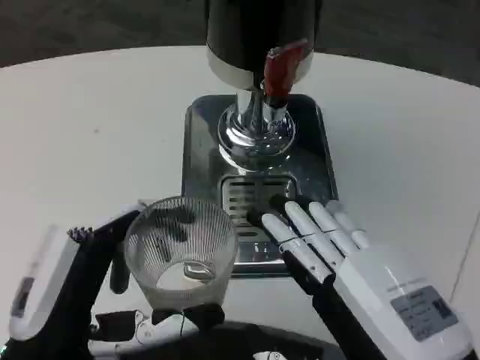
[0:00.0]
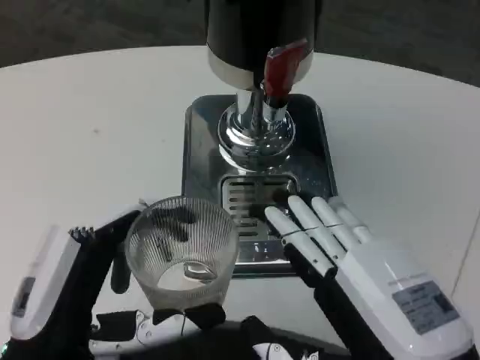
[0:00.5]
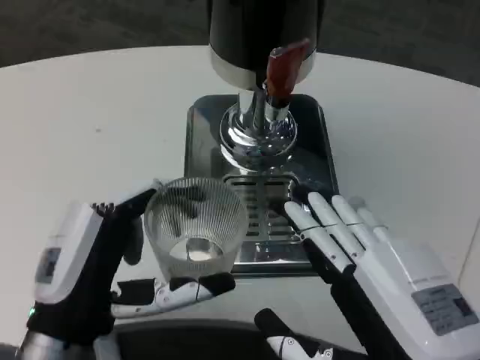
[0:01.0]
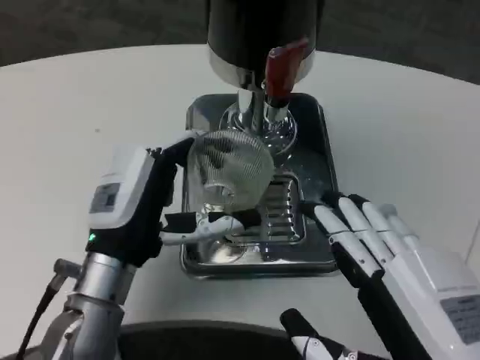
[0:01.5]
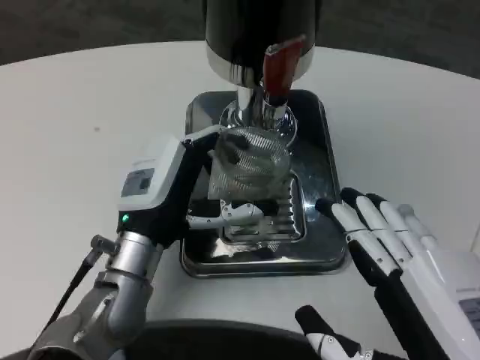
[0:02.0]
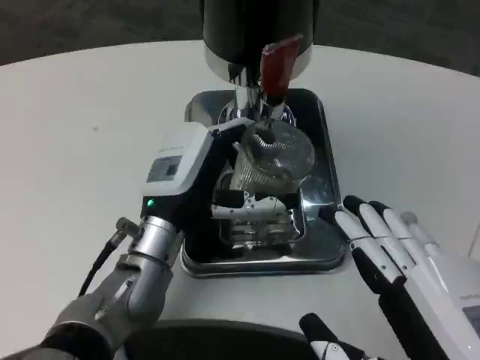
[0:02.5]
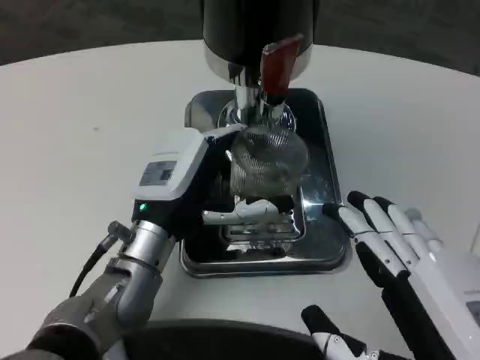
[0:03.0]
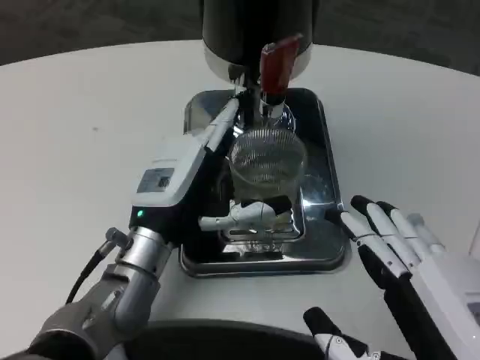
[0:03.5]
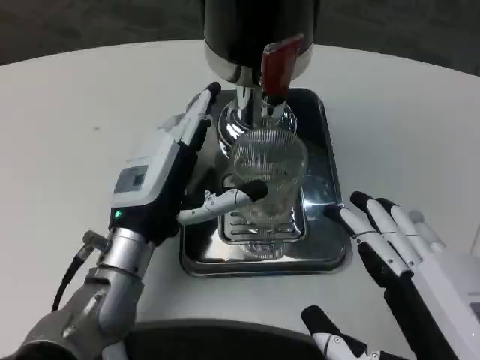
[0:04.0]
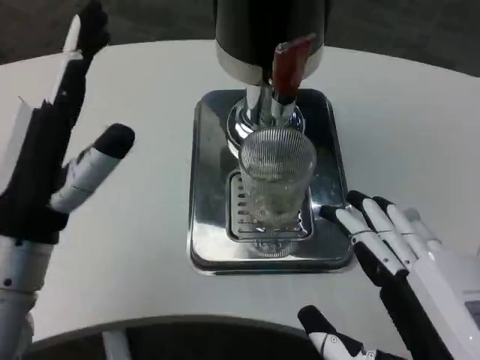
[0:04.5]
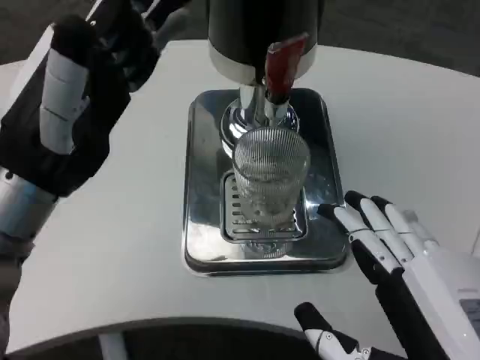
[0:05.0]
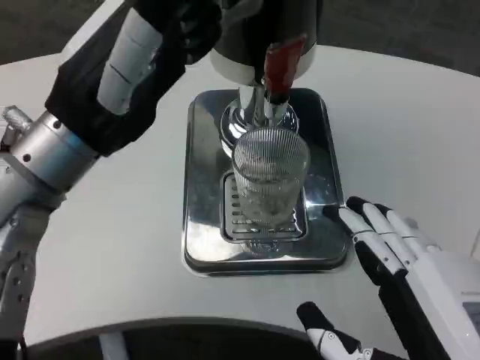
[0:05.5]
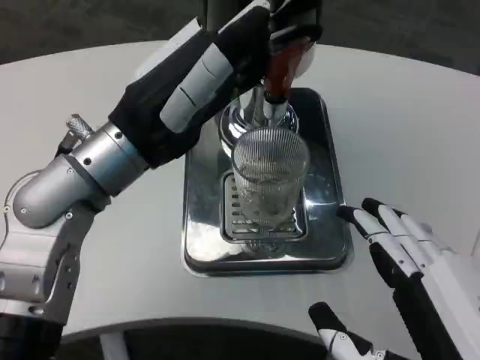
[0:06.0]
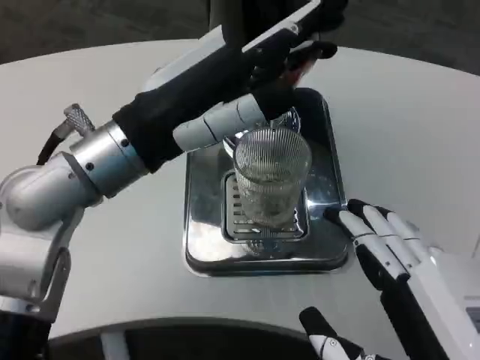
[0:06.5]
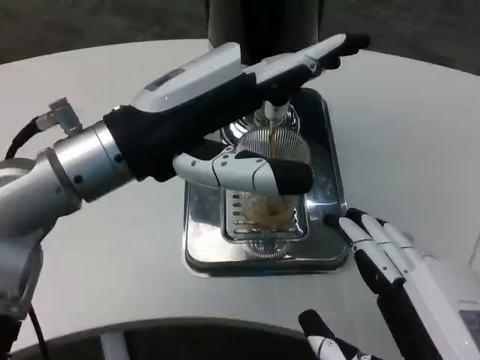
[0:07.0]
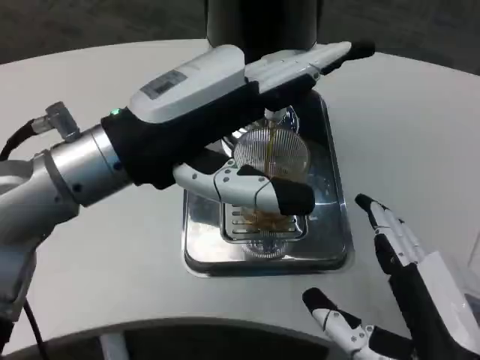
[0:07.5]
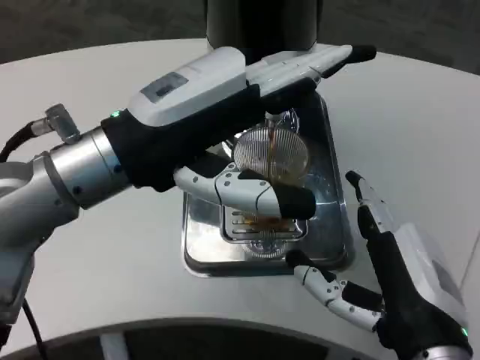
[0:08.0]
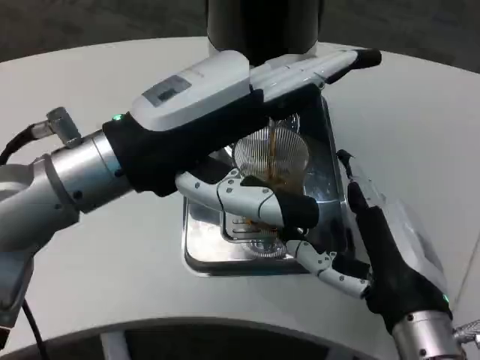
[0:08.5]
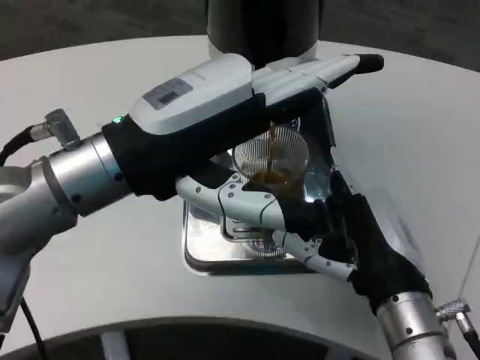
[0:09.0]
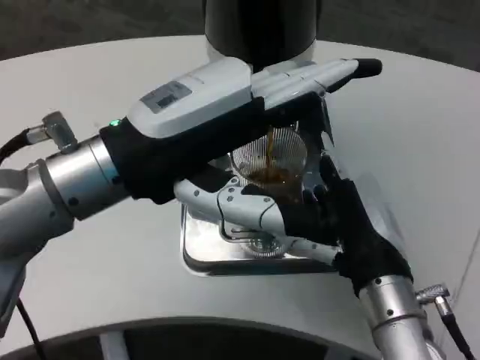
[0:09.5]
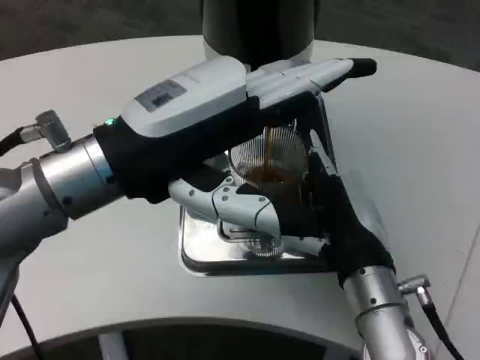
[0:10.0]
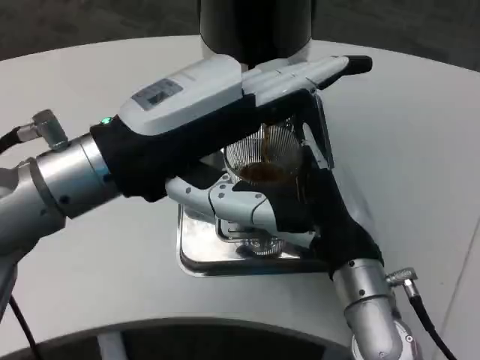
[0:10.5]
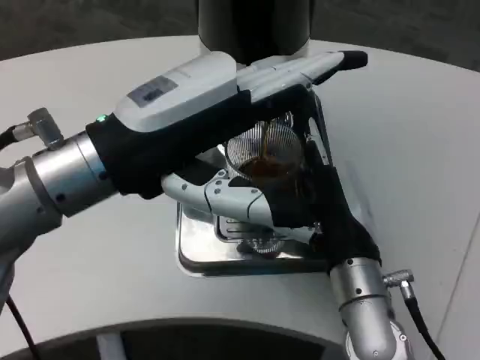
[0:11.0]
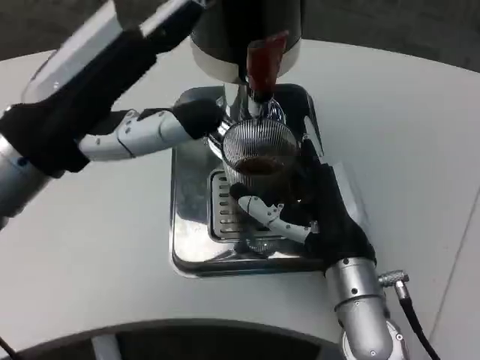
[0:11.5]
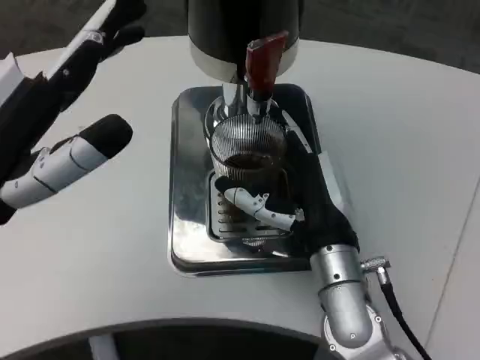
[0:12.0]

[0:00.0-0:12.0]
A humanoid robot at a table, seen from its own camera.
Task of the whole recording: Grasp the cup under the faucet to collect the drink, then remove the cup.
0:00.0 to 0:02.0: The left hand goes roughly 15 cm forward.
0:02.0 to 0:04.0: The hands move only a little.
0:04.0 to 0:06.0: The left hand moves upward, roughly 15 cm.
0:06.0 to 0:08.0: The right hand shifts roughly 10 cm forward.
0:08.0 to 0:10.0: The right hand is displaced forward by some 10 cm.
0:10.0 to 0:12.0: The left hand travels to the left by approximately 10 cm.

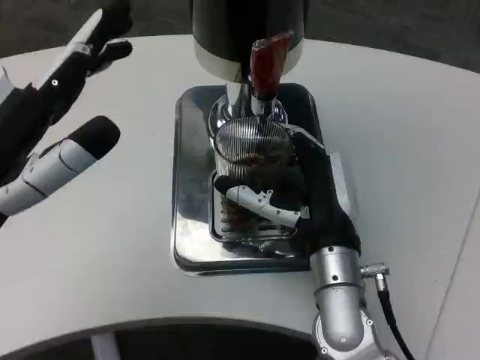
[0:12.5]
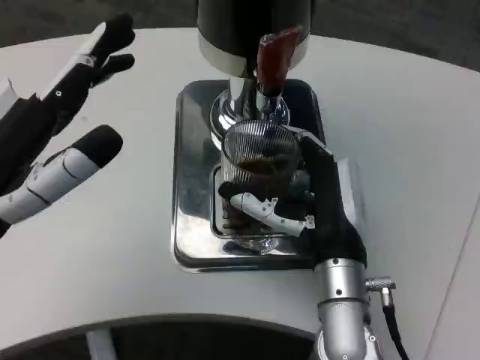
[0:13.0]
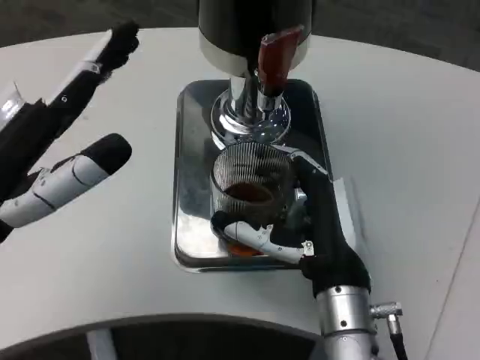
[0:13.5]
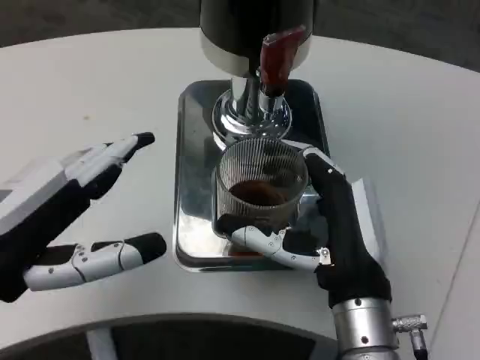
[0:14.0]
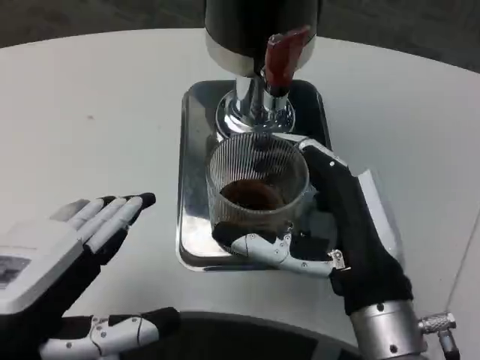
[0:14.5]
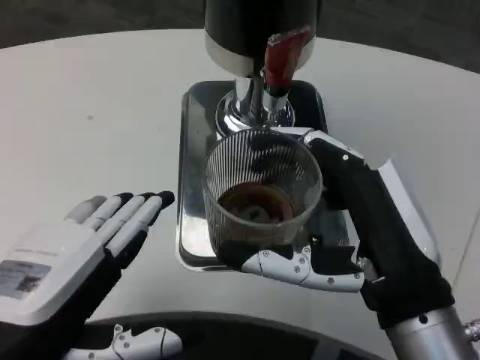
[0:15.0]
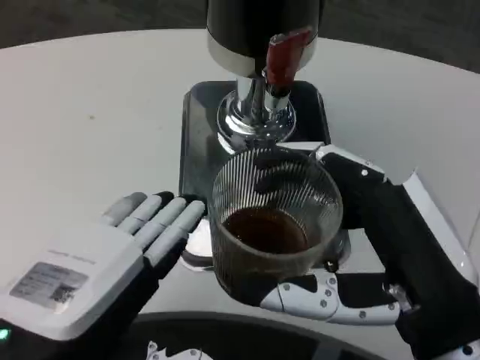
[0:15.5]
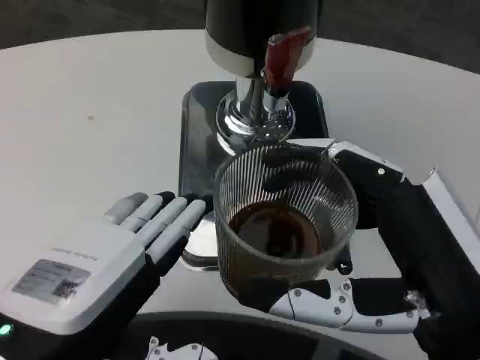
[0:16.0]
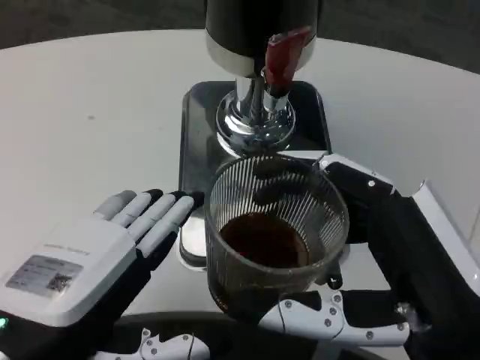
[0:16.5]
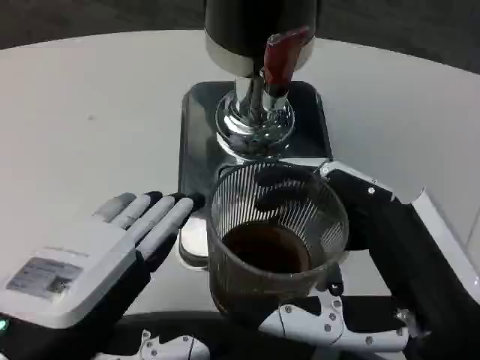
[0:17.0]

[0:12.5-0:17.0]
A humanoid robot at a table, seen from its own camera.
Task of the whole recording: Grasp the cup under the faucet to collect the drink, then remove the cup.
0:12.5 to 0:14.5: Both hands move backward, approximately 10 cm.
0:14.5 to 0:17.0: The right hand shifts approximately 10 cm backward.

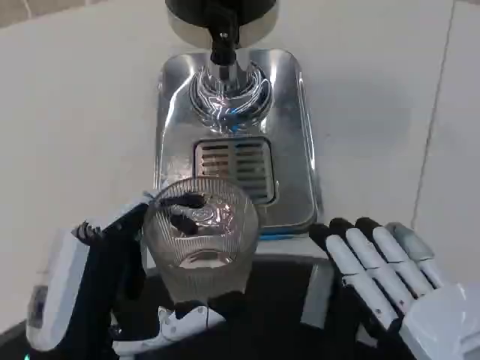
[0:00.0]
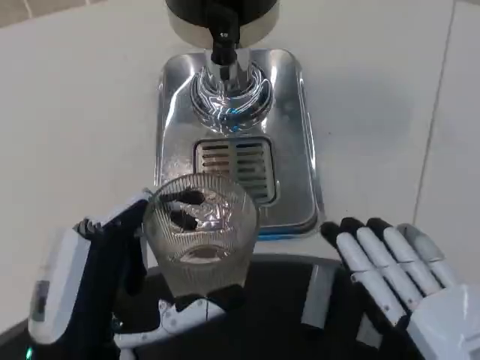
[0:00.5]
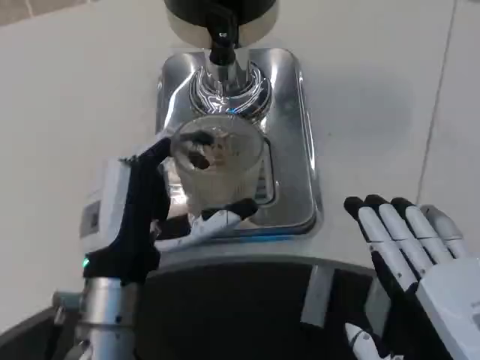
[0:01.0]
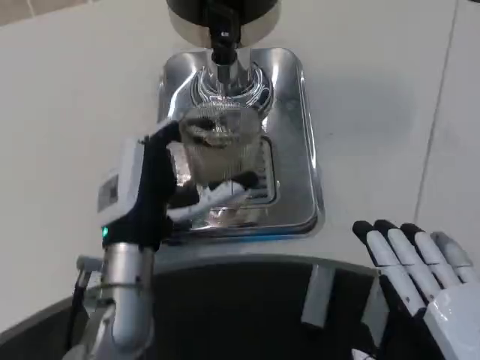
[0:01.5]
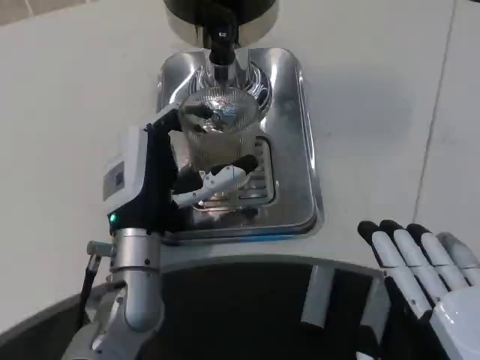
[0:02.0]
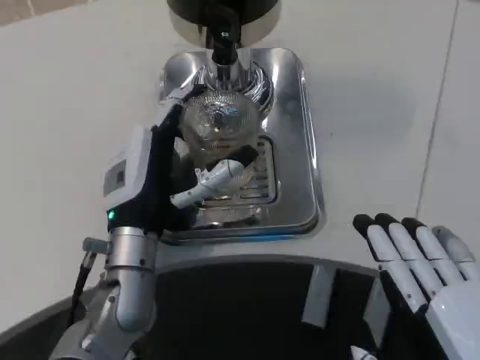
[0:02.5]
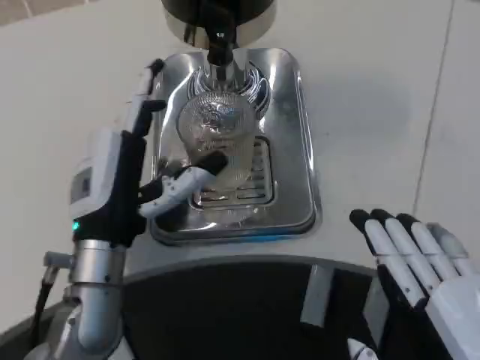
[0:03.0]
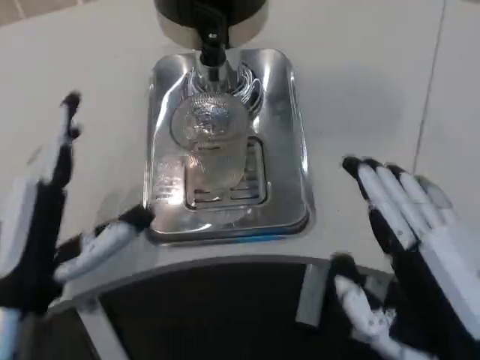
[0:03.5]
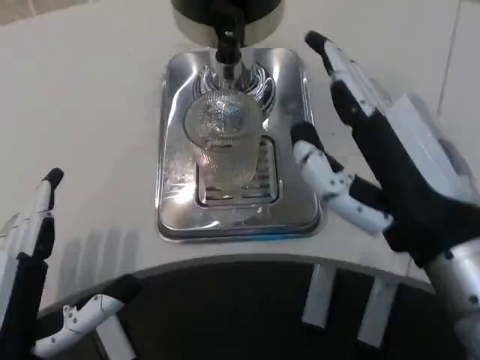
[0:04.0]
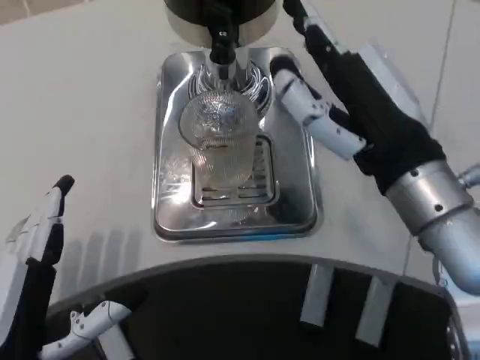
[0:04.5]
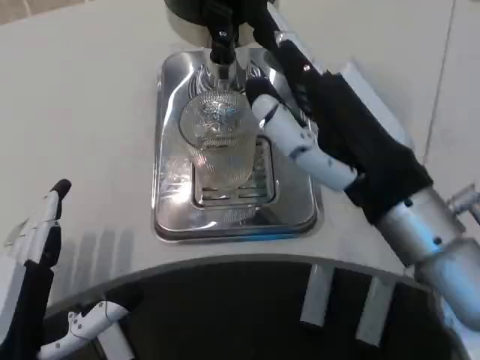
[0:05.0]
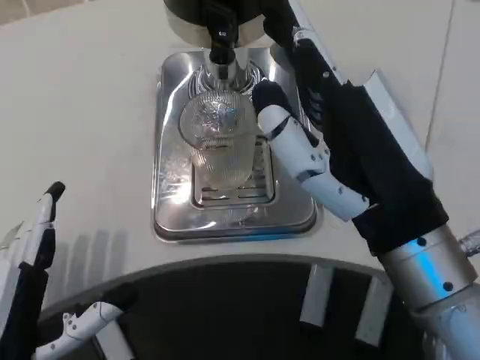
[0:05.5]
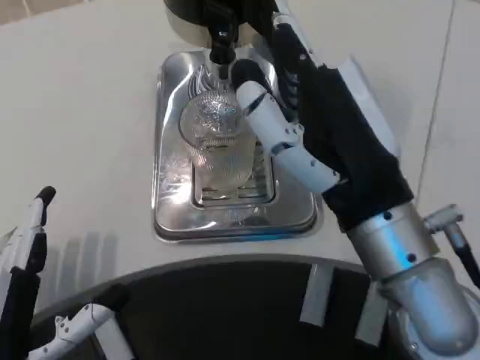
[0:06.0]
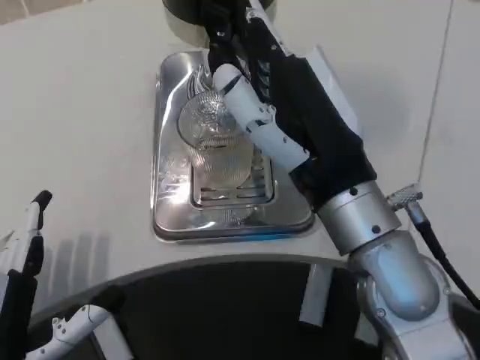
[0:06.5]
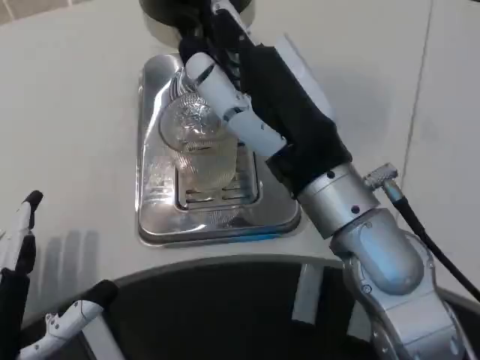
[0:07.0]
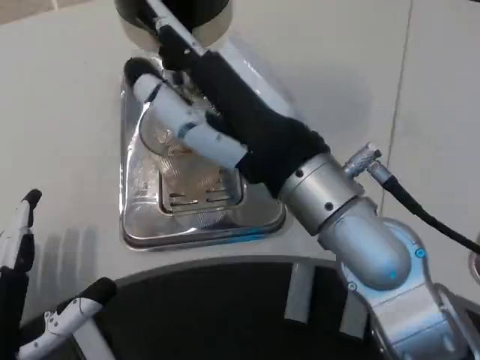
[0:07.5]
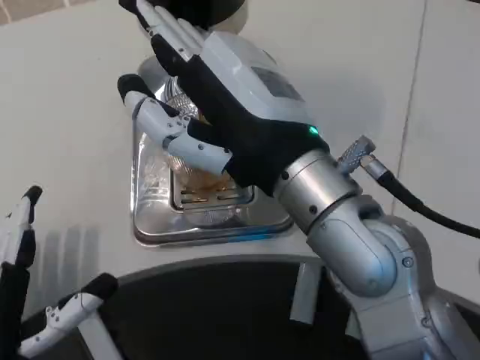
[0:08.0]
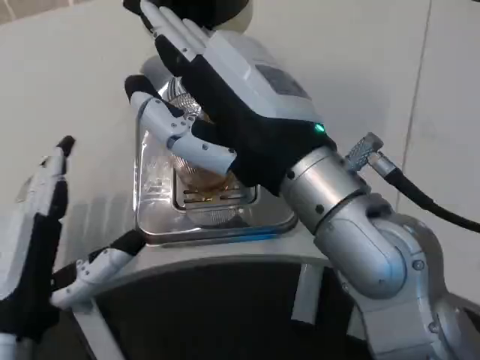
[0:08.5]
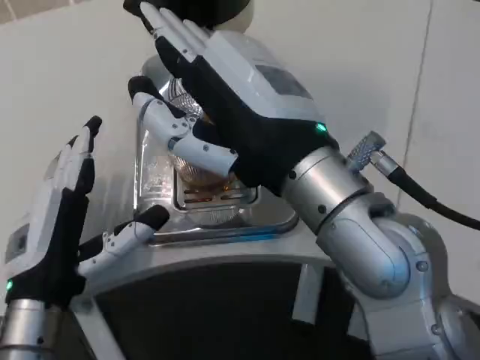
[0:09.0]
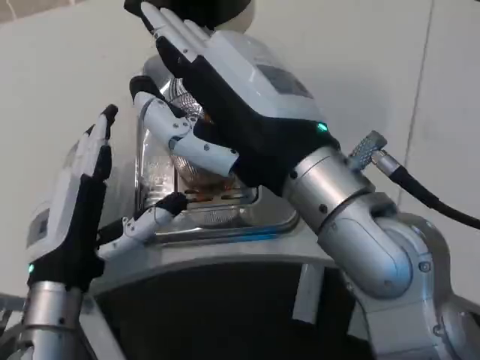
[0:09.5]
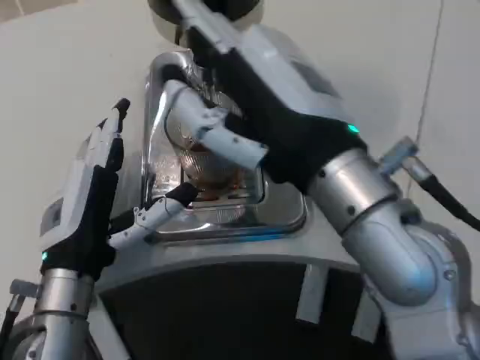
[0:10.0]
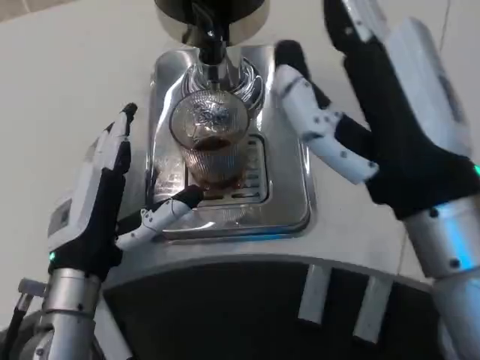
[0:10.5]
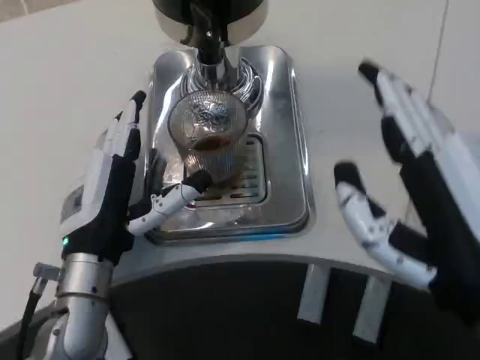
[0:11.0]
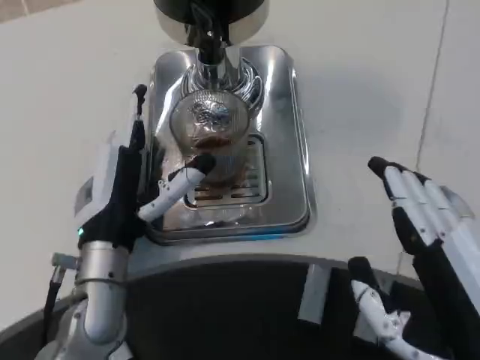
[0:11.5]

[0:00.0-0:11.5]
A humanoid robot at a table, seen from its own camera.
Task of the whole recording: Grasp the cup under the faucet to collect the drink, then remove the cup.
0:00.0 to 0:02.0: The left hand goes about 15 cm forward.
0:02.0 to 0:04.0: The left hand travels backward and to the left by about 20 cm; the right hand goes about 15 cm forward.
0:04.0 to 0:06.0: The right hand moves approximately 5 cm.
0:06.0 to 0:07.5: The right hand moves roughly 5 cm.
0:07.5 to 0:09.5: The left hand travels forward by about 10 cm.
0:09.5 to 0:11.5: The right hand heads backward, to the right and downward, covering roughly 20 cm, while the left hand shifts by roughly 5 cm.
